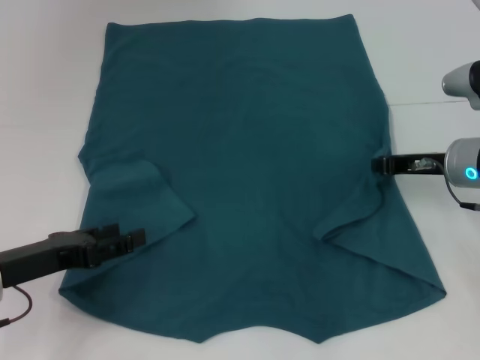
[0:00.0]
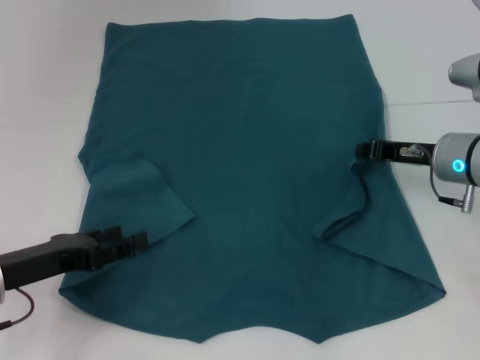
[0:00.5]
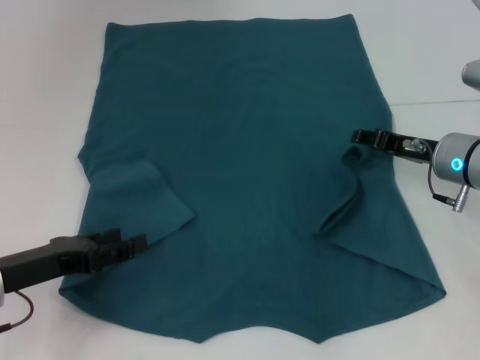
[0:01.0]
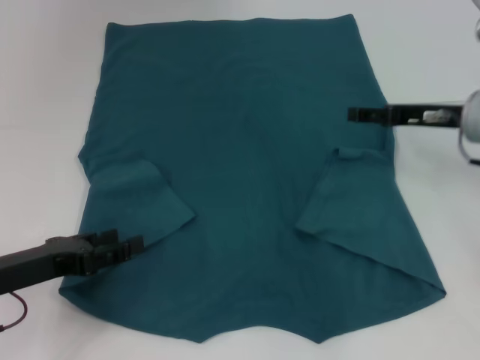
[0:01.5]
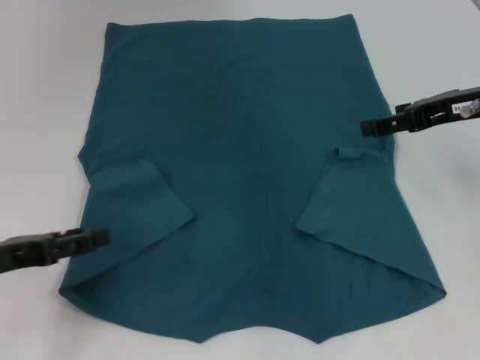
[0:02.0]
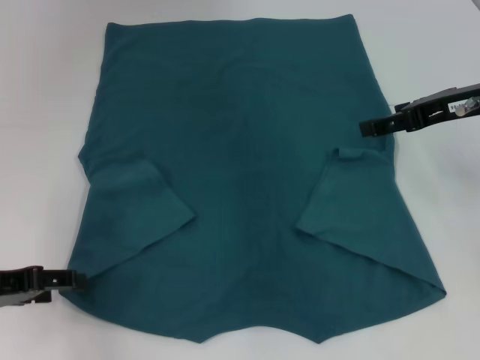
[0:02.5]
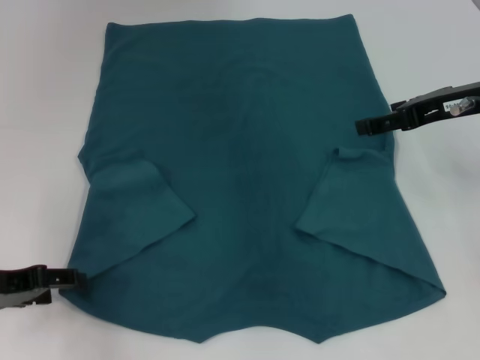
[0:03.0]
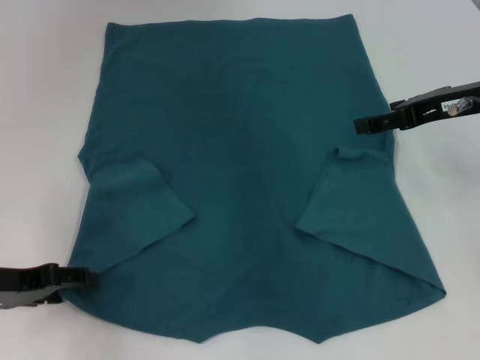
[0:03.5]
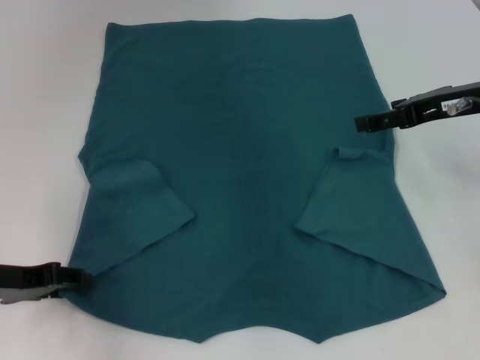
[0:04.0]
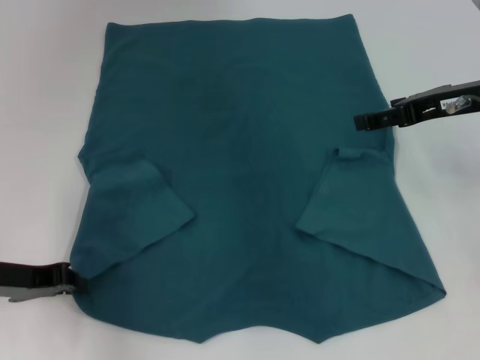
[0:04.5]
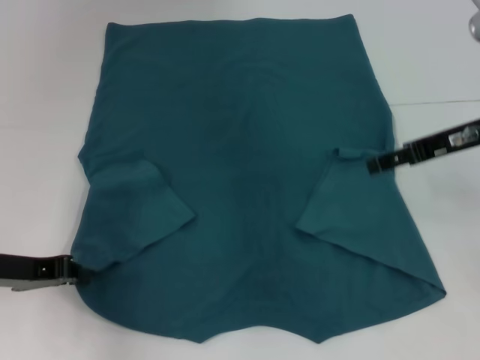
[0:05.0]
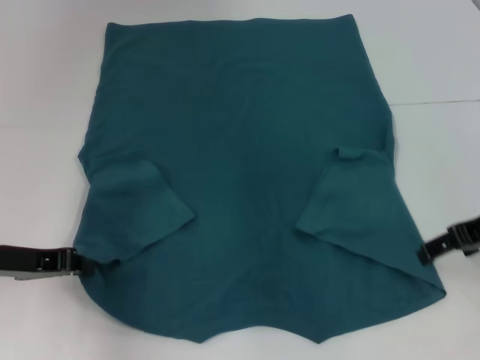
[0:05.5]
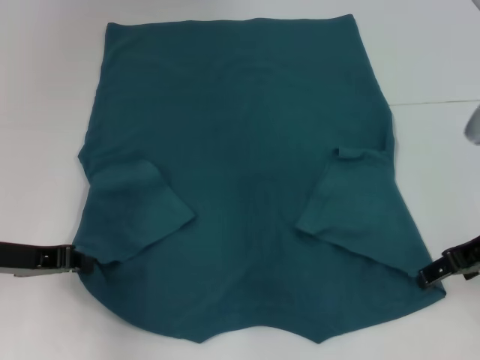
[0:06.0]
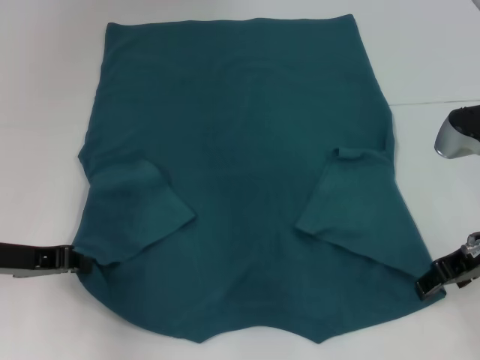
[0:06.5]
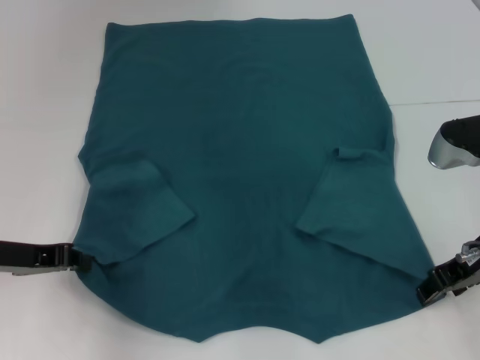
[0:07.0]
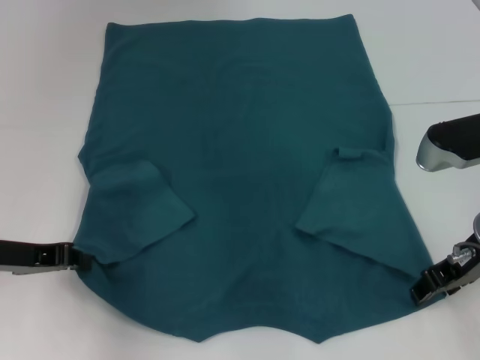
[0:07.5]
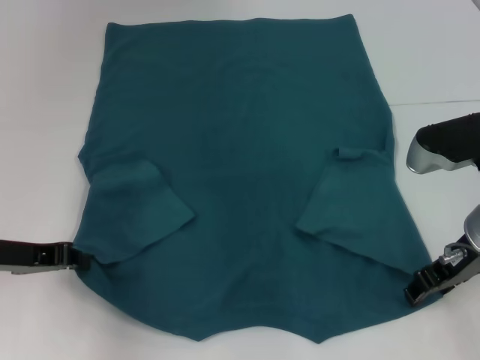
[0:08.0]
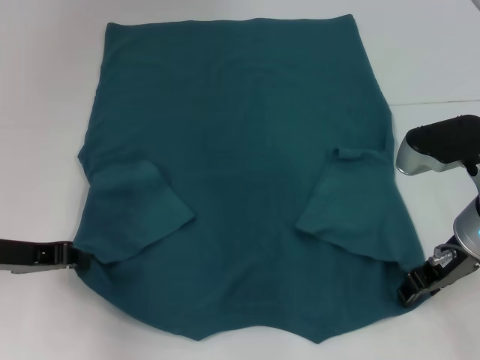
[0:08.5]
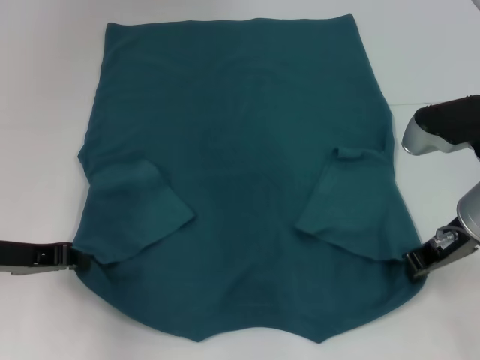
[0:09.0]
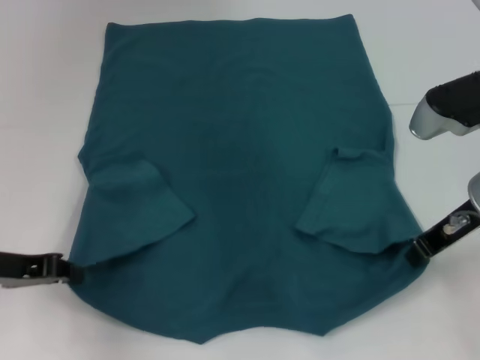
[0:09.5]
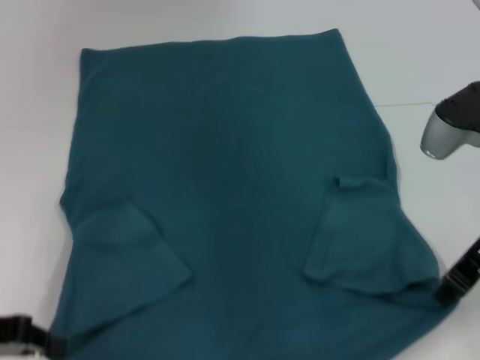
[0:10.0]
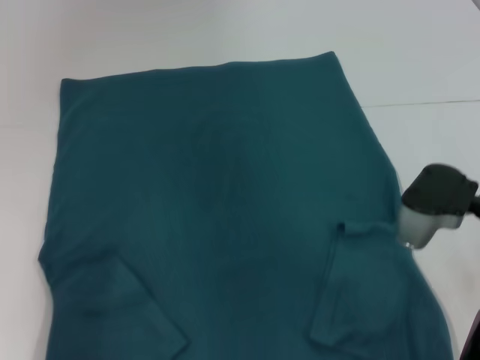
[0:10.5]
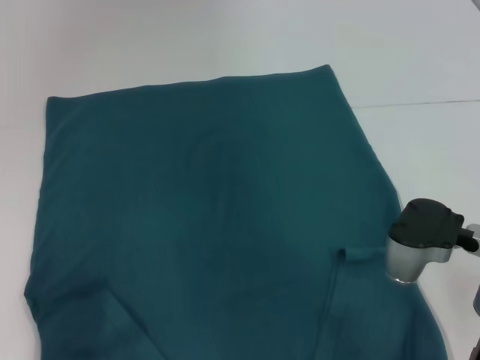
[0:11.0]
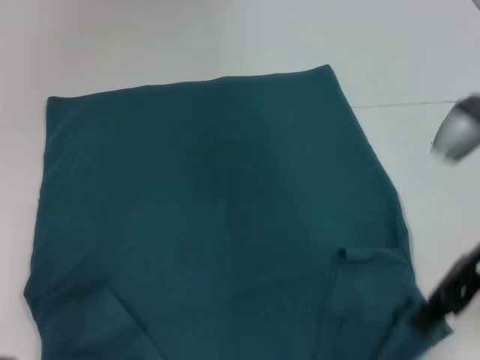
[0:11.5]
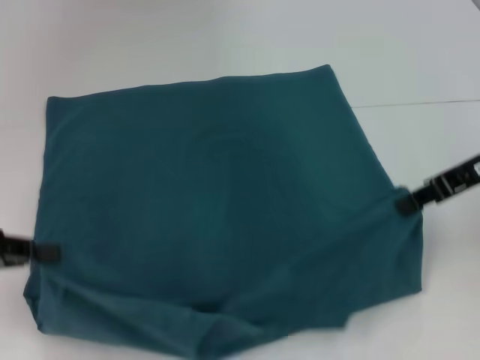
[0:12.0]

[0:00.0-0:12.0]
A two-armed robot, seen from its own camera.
Step, 0:00.0 to 0:03.5: Fold the bottom right sleeve to the right.
Step, 0:04.0 to 0:04.5: Grab the bottom left corner with your left hand.
Step, 0:05.0 to 0:09.0: Grab the bottom right corner with your right hand.
0:00.0 to 0:02.0: The right gripper moves upward, some 10 cm, and opens its fingers.
0:04.0 to 0:06.0: The right gripper is displaced backward and downward by approximately 10 cm, while the left gripper closes up.
0:06.0 to 0:08.0: The grippers stay close to where they were, moving slightly.
0:08.0 to 0:10.0: The left gripper is displaced backward by approximately 5 cm; the right gripper shifts roughly 5 cm upward, and closes up.
0:10.0 to 0:12.0: The left gripper ends up some 5 cm from where it was. The right gripper shifts by roughly 5 cm.

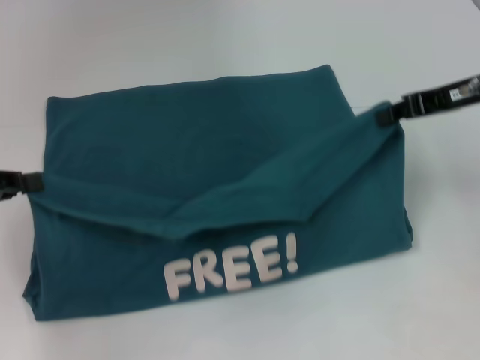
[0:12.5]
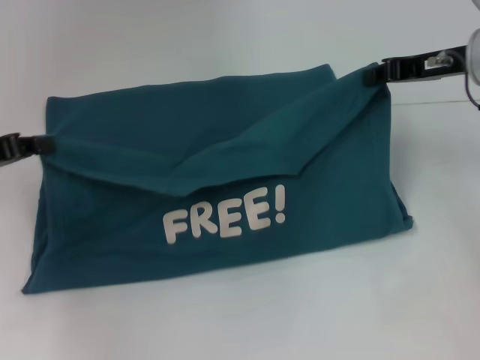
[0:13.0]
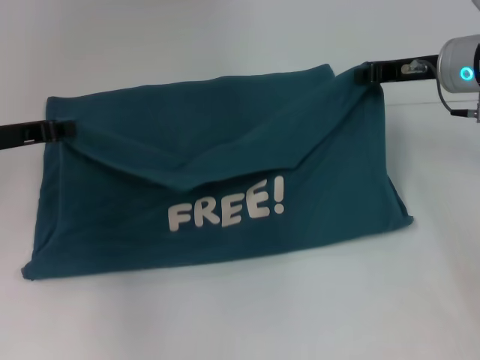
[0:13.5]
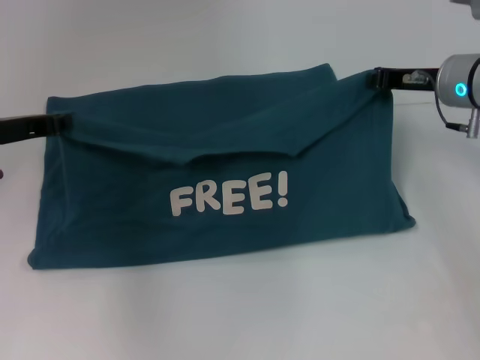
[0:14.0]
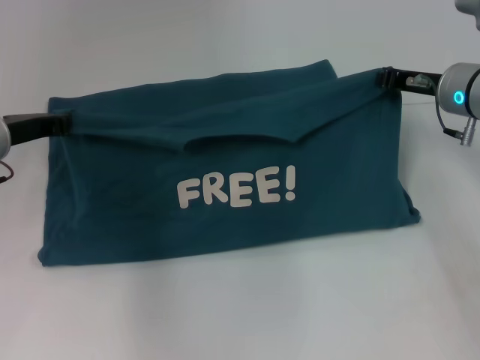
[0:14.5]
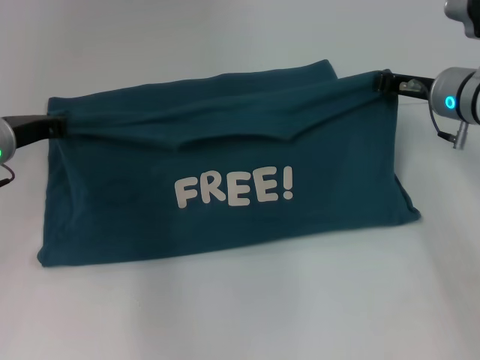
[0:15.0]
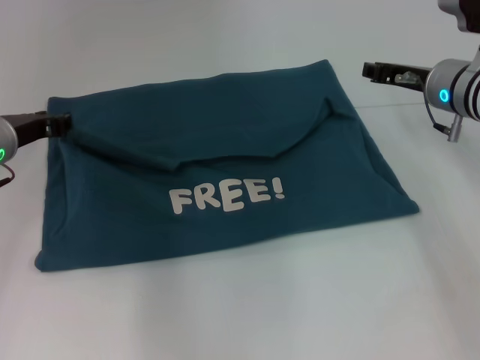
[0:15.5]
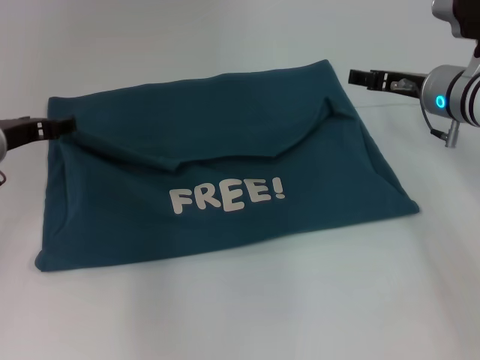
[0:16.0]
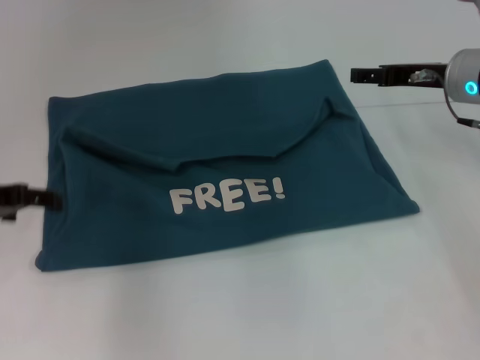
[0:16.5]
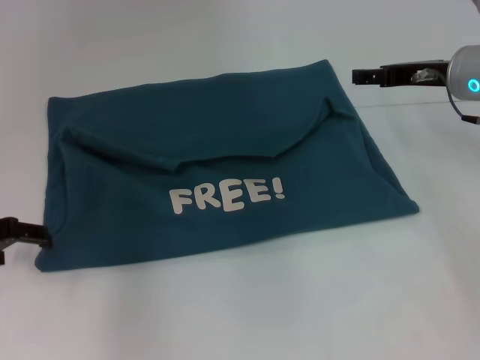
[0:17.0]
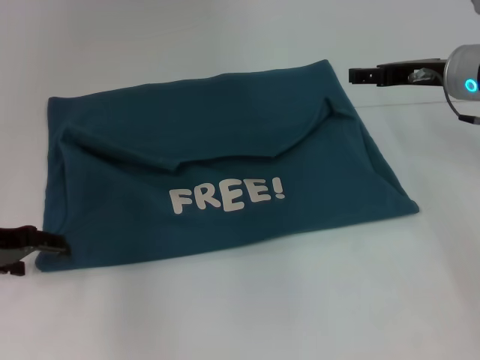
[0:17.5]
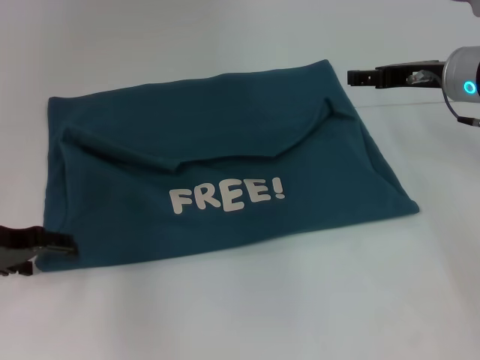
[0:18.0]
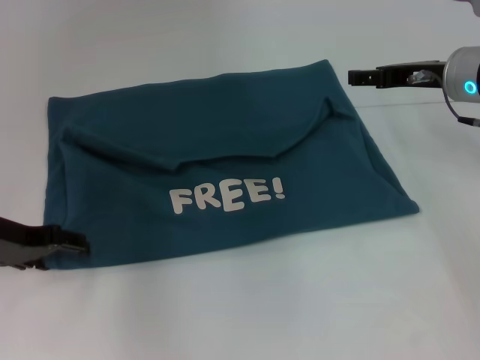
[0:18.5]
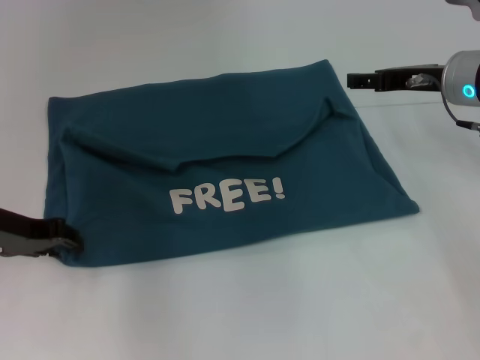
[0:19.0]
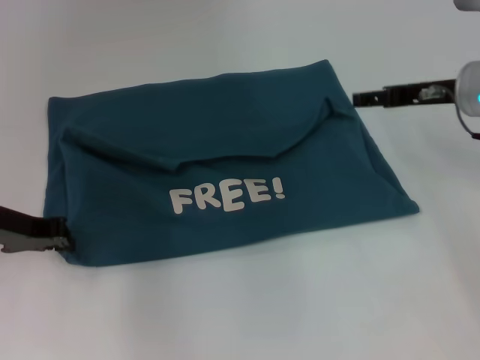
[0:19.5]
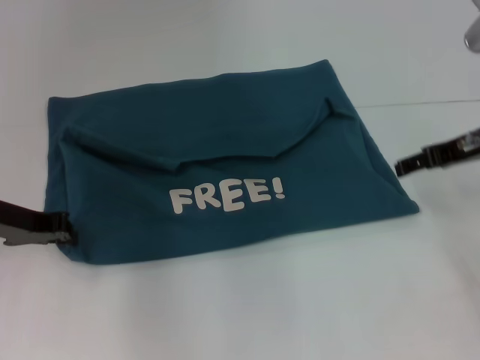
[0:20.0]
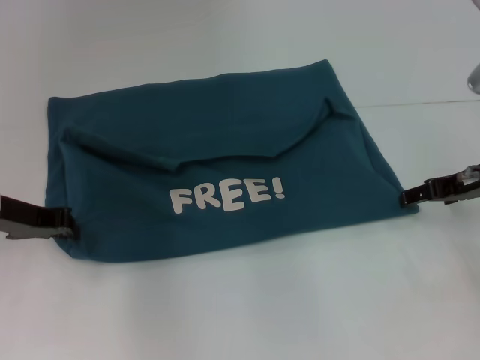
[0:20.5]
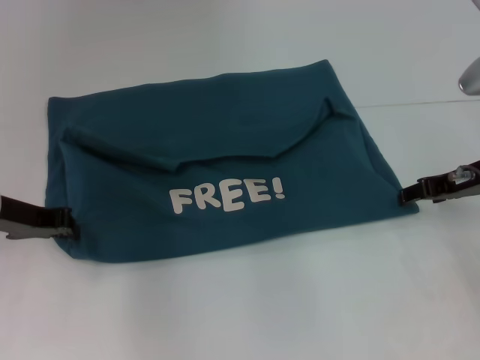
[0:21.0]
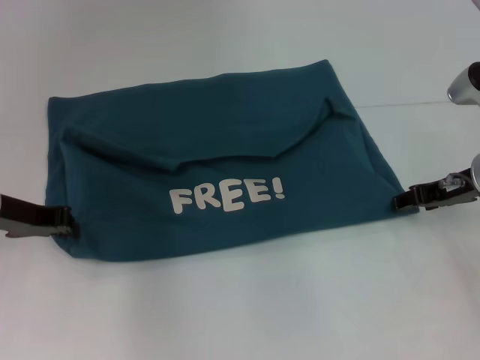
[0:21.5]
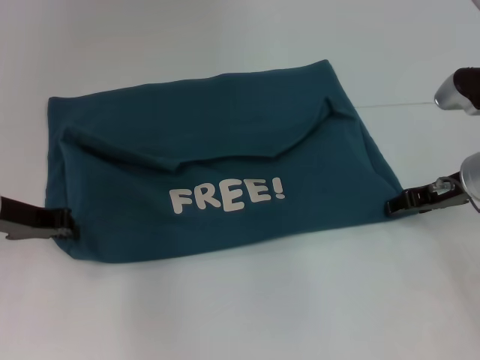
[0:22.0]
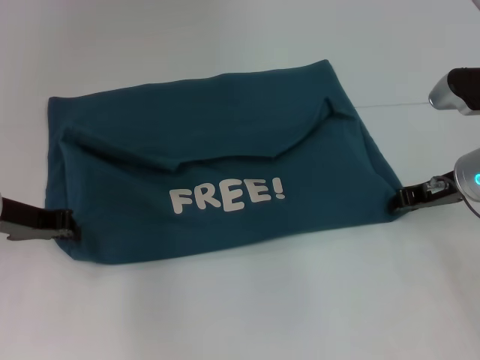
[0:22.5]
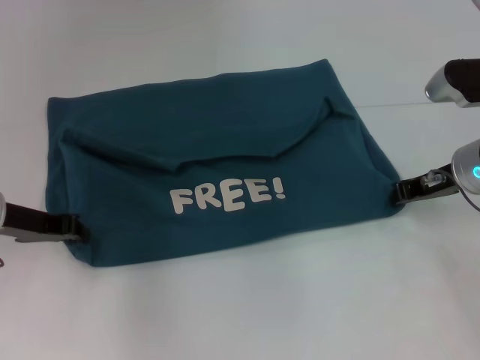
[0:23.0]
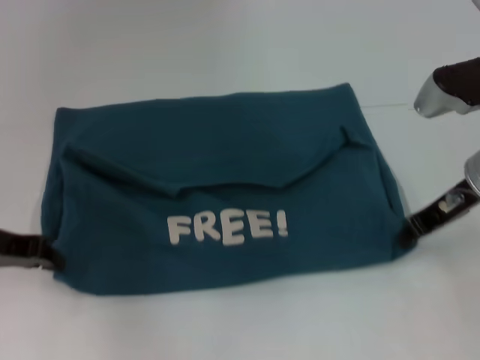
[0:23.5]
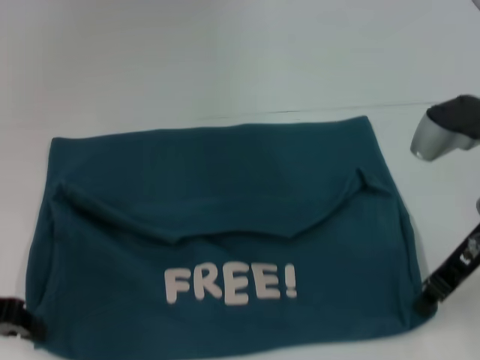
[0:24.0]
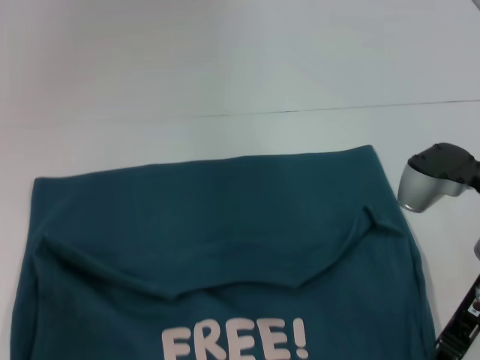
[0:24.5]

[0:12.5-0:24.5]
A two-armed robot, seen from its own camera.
Step, 0:12.5 to 0:15.5: Fold the clothes to the left.
Step, 0:12.5 to 0:15.5: Fold the clothes to the right.
0:12.5 to 0:14.5: The left gripper heads forward and to the right, covering some 15 cm. The right gripper is displaced downward by about 10 cm.
0:14.5 to 0:16.5: The left gripper travels backward by roughly 5 cm, and opens; the right gripper opens up.
0:16.5 to 0:18.5: The grippers make only small movements.
0:18.5 to 0:20.5: The right gripper heads backward, covering some 5 cm; the left gripper closes up.
0:20.5 to 0:22.5: The grippers stay close to where they were, moving slightly.
0:22.5 to 0:24.5: The left gripper is displaced backward and to the left by about 15 cm. The right gripper goes some 10 cm backward, and closes.

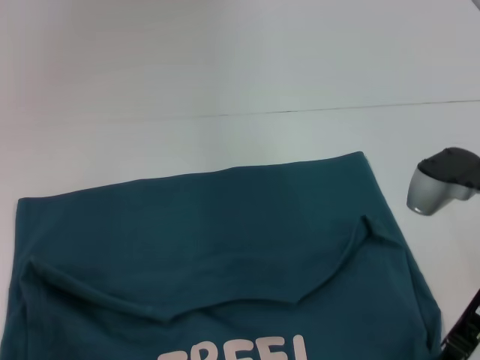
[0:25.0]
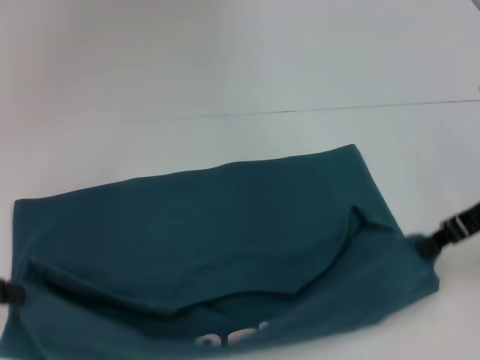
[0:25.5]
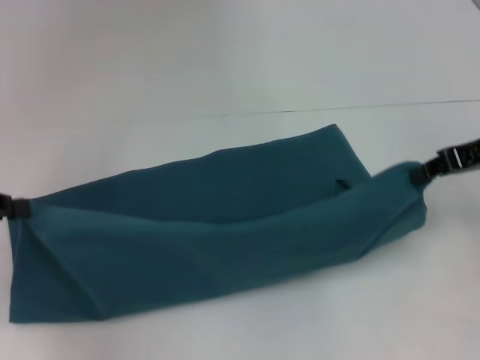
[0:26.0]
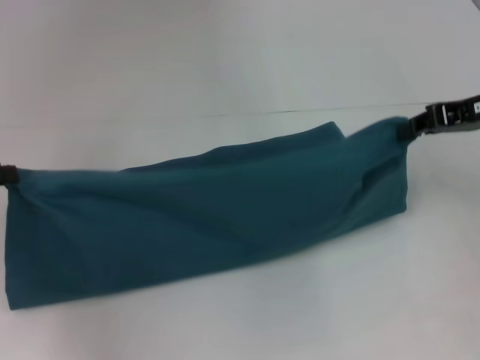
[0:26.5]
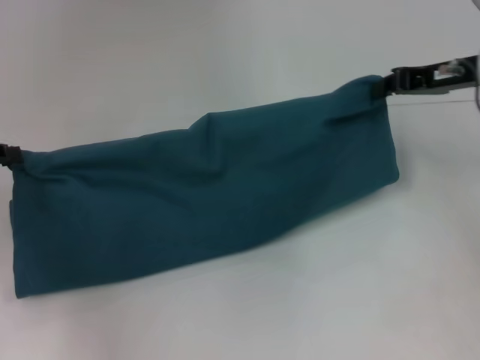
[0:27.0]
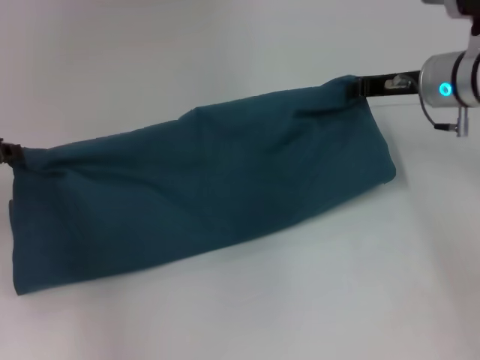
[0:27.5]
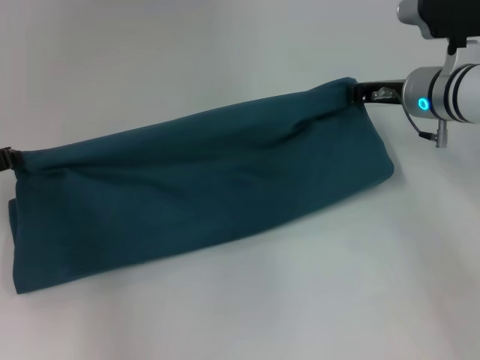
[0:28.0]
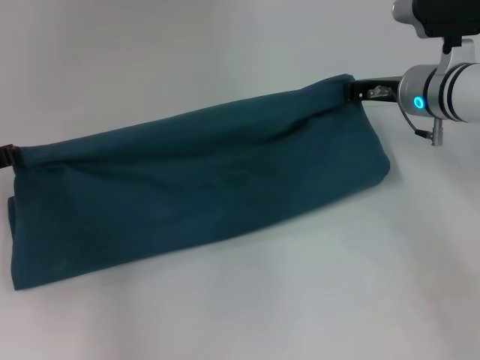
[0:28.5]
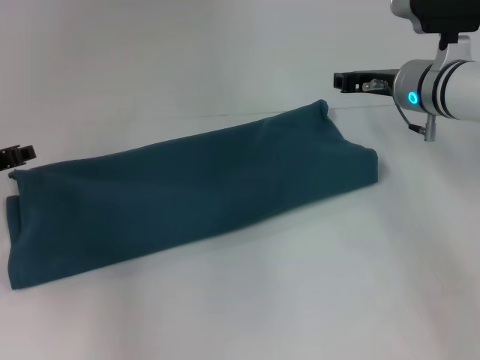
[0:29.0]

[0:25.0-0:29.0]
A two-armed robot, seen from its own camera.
0:25.0 to 0:27.0: The right gripper is displaced forward and upward by about 15 cm. The left gripper is displaced forward by roughly 10 cm.
0:27.0 to 0:29.0: The right gripper goes roughly 10 cm to the left and downward; the left gripper is displaced downward by some 5 cm.
